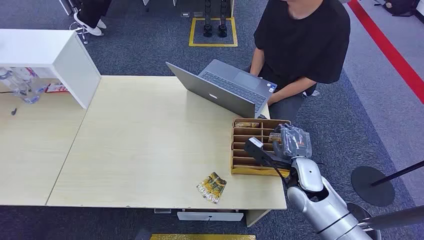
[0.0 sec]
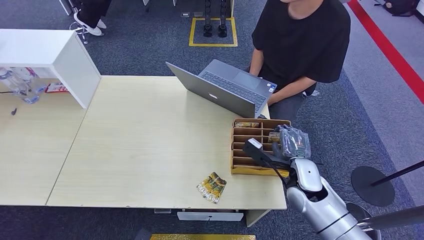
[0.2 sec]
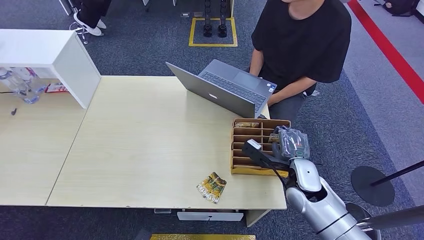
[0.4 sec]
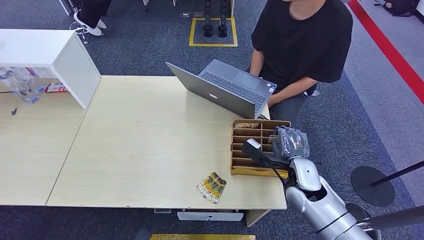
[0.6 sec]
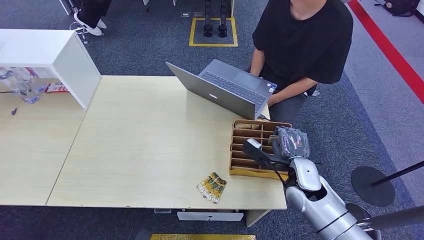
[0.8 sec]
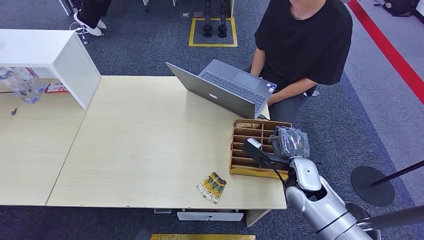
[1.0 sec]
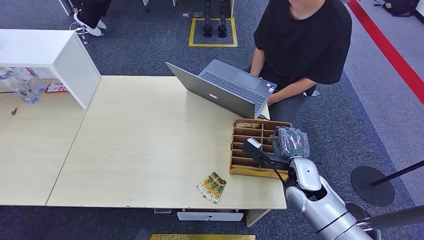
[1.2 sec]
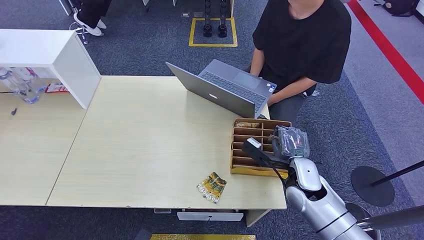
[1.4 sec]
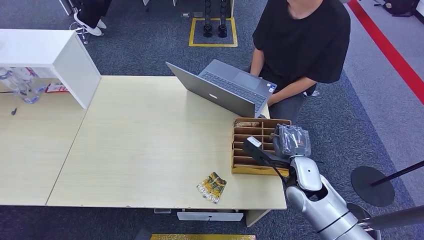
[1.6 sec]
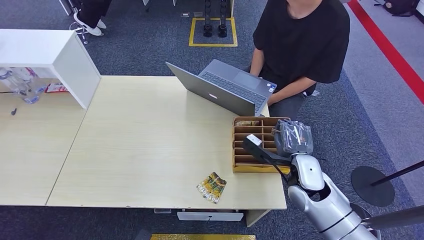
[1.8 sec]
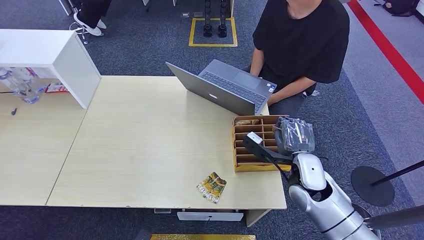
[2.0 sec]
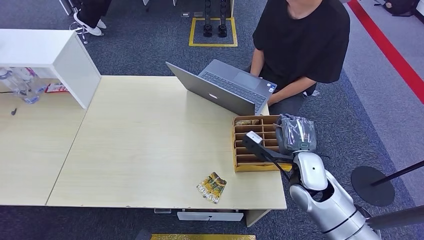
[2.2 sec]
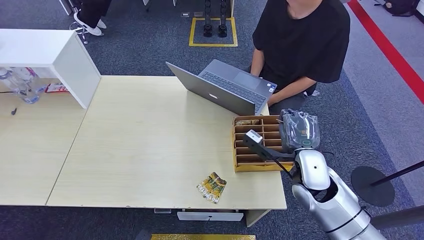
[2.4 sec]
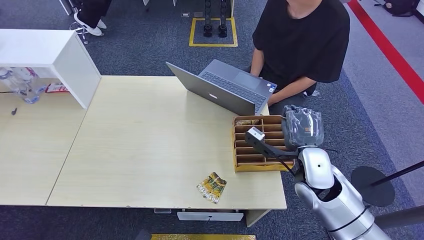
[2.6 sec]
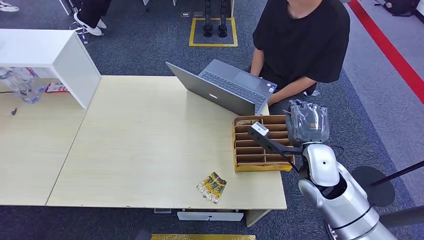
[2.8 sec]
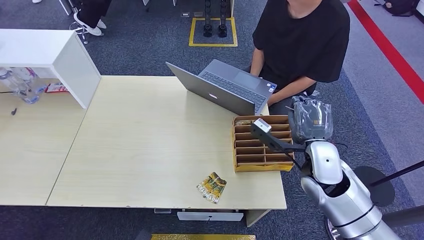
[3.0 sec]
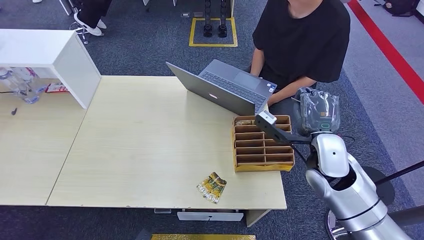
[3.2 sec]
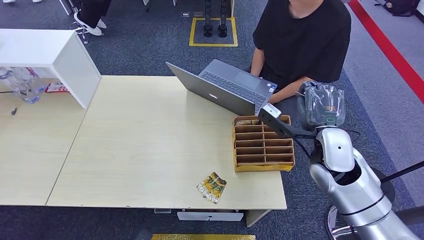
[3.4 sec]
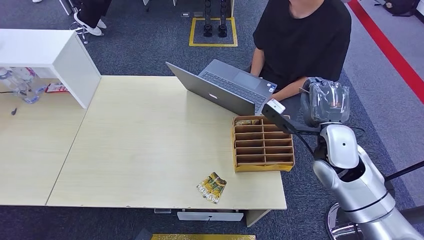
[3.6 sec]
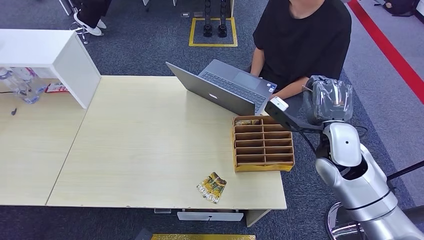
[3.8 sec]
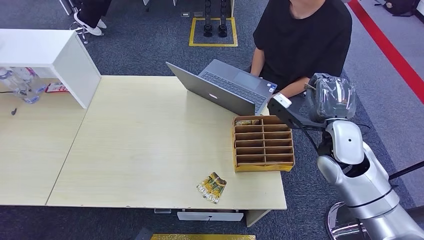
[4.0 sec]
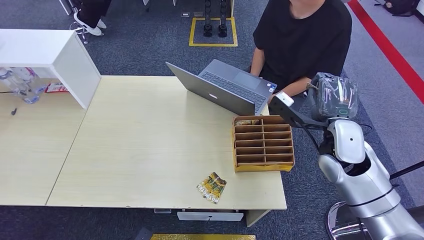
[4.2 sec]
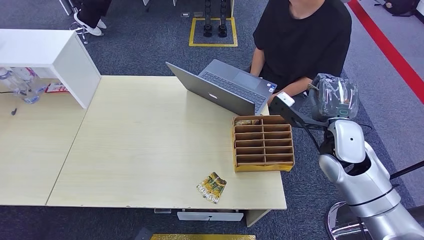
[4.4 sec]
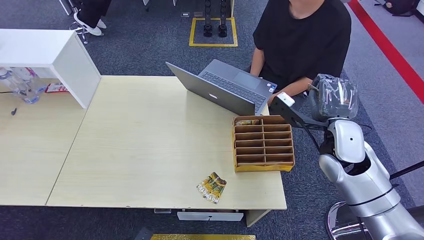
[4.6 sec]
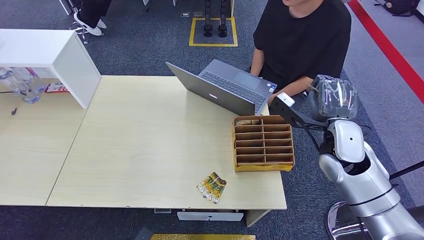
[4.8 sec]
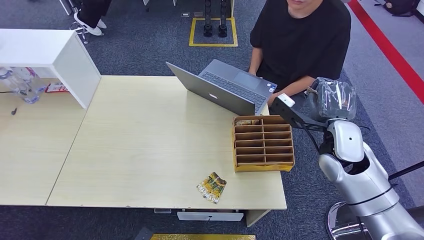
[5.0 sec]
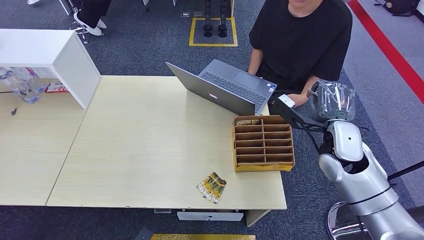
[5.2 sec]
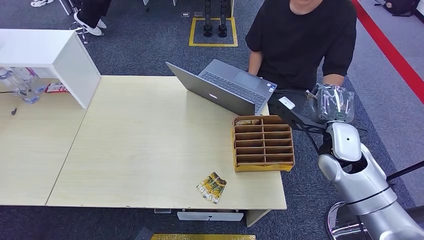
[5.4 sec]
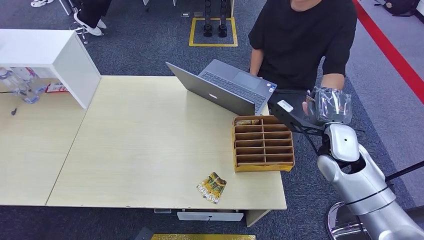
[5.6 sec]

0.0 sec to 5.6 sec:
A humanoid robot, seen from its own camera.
Task of the whole recording: Pick up the card and hand it over to the target person.
Step, 0.0 sec to 2.6 sec: Pick up the key card from the card box.
Step, 2.8 sec to 5.6 sec: Hand the key card to the target.
1.4 sec to 2.8 sec: The right hand heads upward, covering roughly 10 cm.
2.8 sec to 4.2 sec: The right hand moves some 5 cm.
4.2 sec to 5.6 sec: The right hand moves about 5 cm.
